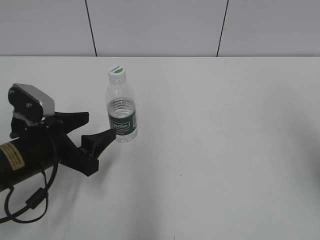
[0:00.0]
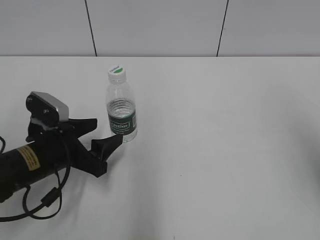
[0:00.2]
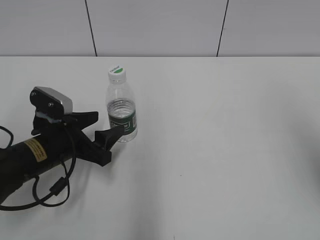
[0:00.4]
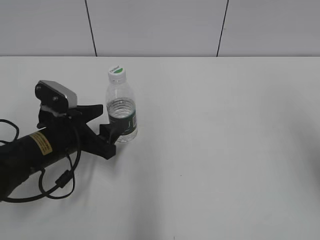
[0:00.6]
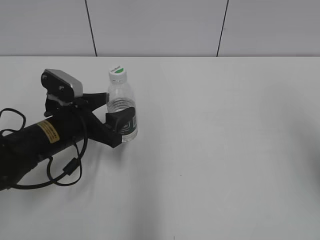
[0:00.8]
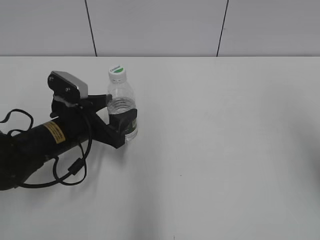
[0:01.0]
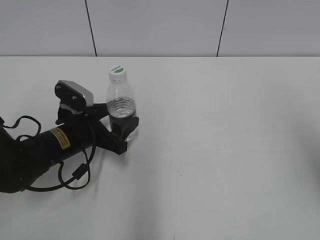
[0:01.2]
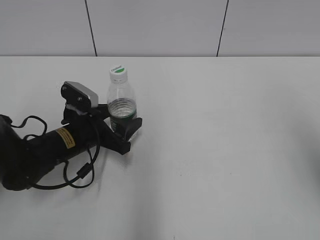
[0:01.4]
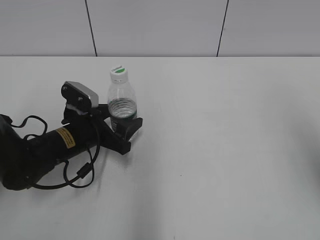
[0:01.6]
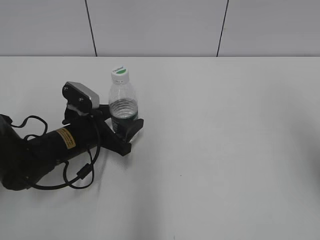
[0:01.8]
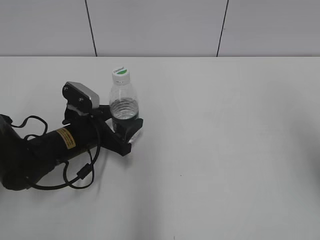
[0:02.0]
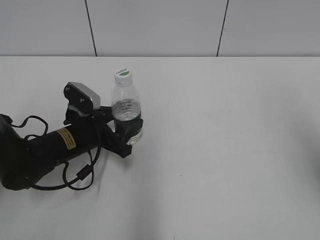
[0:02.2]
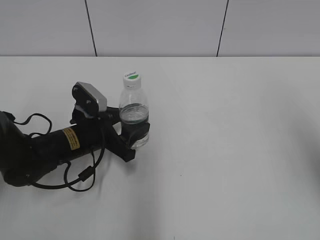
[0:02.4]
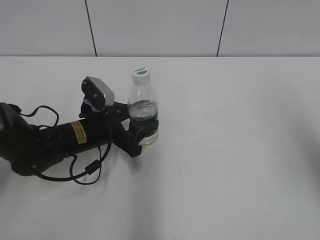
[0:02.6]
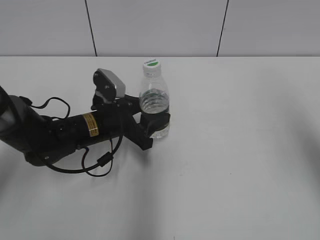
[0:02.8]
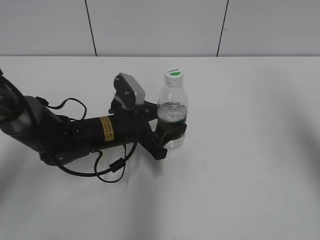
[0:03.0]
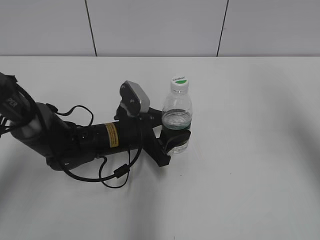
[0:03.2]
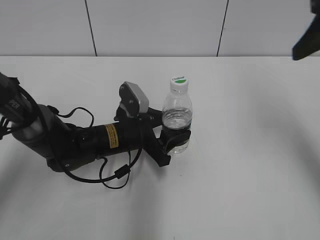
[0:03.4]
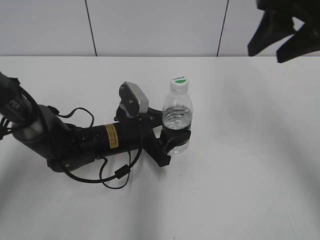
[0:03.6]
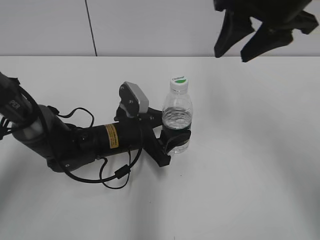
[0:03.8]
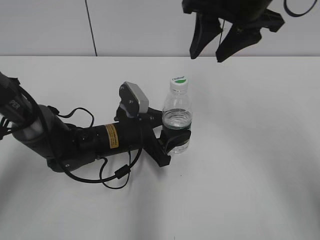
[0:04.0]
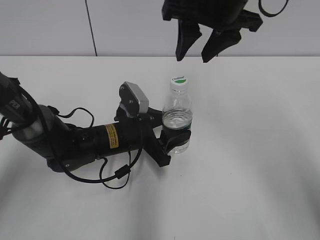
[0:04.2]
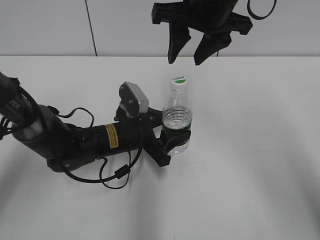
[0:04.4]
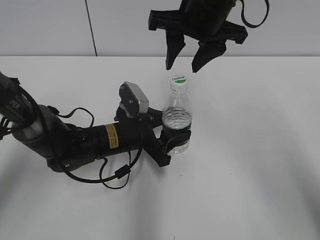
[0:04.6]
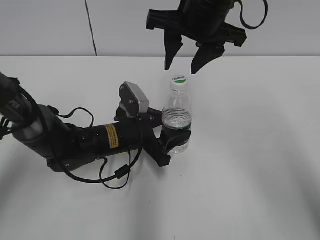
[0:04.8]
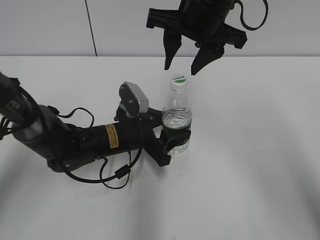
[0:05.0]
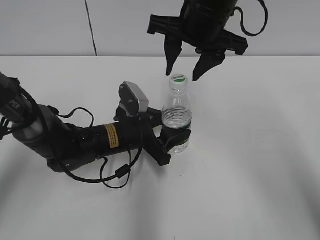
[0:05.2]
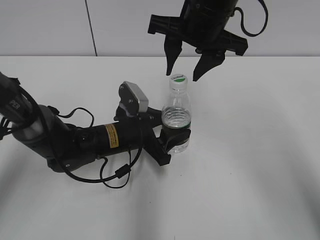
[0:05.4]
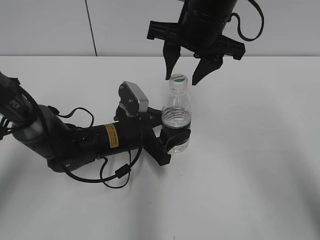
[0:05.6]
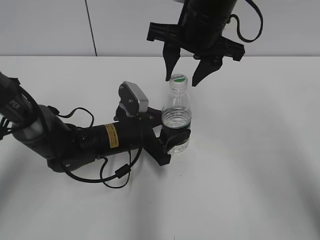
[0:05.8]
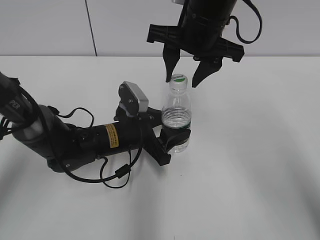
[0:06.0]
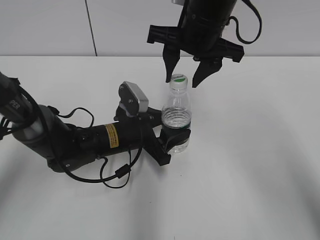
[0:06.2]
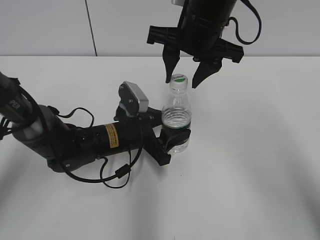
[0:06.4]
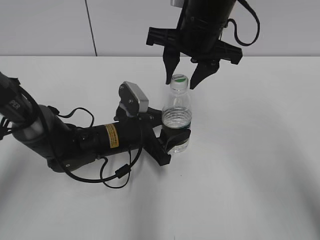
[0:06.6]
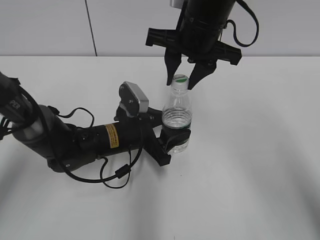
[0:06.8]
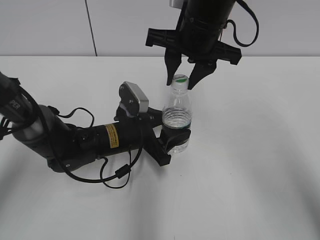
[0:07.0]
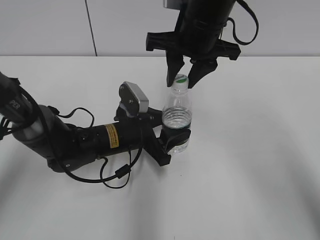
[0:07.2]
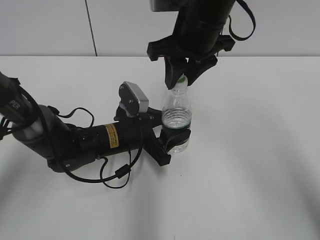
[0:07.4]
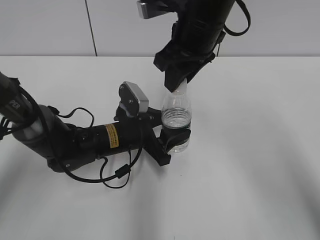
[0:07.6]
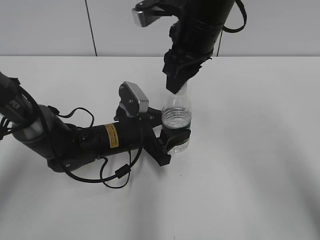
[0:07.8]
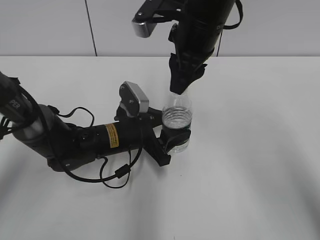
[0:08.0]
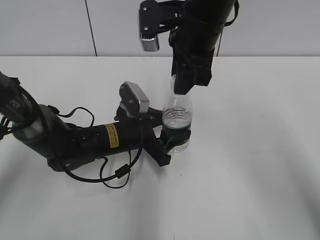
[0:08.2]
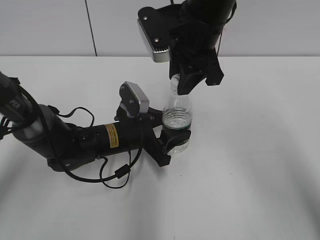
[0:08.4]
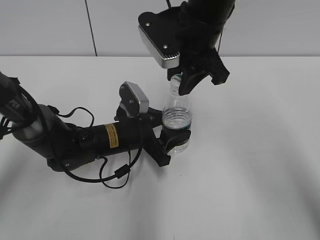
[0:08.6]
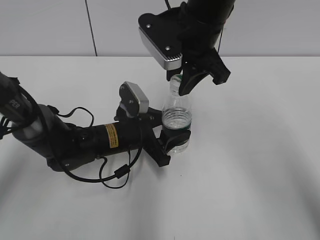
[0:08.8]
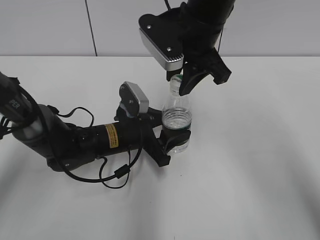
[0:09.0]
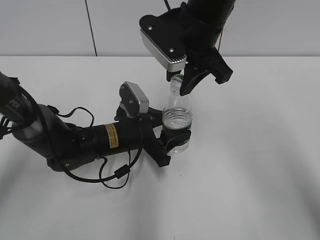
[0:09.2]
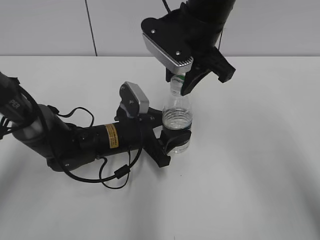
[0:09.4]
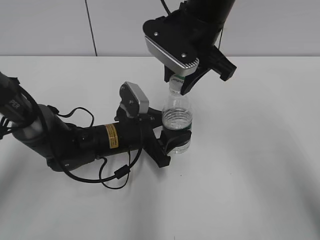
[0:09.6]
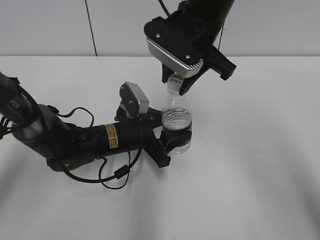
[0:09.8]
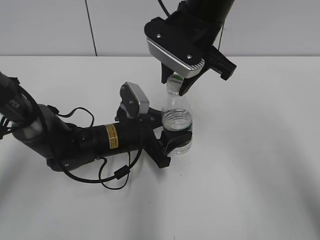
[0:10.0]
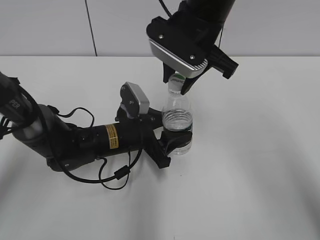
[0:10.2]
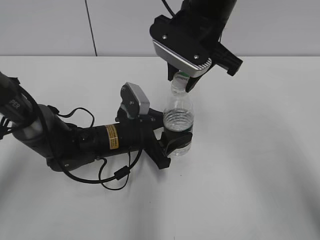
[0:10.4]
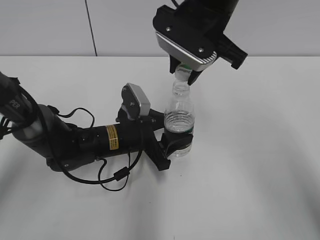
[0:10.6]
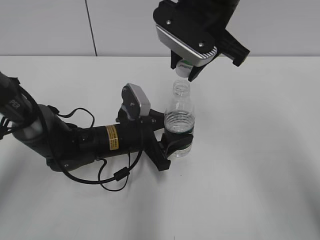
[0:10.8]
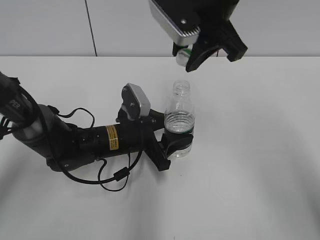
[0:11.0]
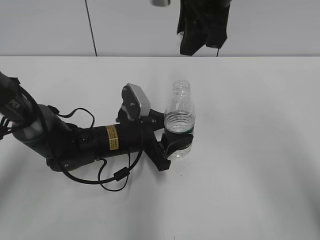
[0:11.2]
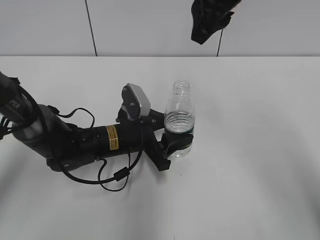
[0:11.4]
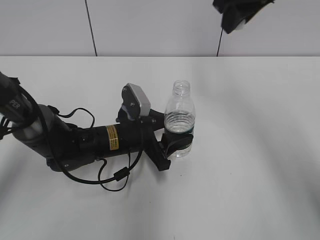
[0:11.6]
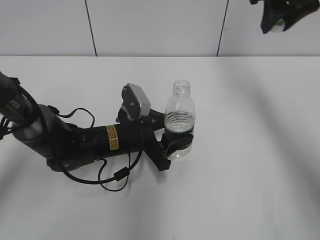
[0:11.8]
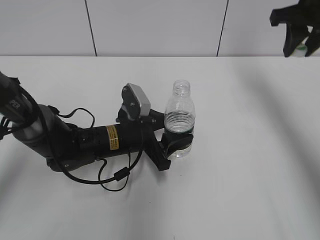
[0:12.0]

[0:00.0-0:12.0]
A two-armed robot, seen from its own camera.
Step, 0:00.0 to 0:02.2: Grasp the bottle and move it to the center of the table with the left gripper.
Step, 0:02.4 to 0:03.4: Lift the bottle and move it to the center of the table with the left gripper.
Step, 0:03.6 to 0:10.8: Unscrew the bottle cap with the right gripper while holding the bottle with the left gripper.
0:00.0 to 0:01.6: The left gripper travels forward and downward by about 10 cm.
0:01.6 to 0:03.0: The right gripper is displaced forward by about 5 cm. Meanwhile the left gripper is displaced to the right by approximately 5 cm, and closes its fingers.
0:03.0 to 0:04.4: The right gripper heads to the left and forward, covering approximately 25 cm.
0:04.4 to 0:06.0: The grippers stay close to where they were, moving slightly.
0:06.0 to 0:07.6: The right gripper closes.
0:10.4 to 0:12.0: The right gripper travels to the right by about 20 cm.

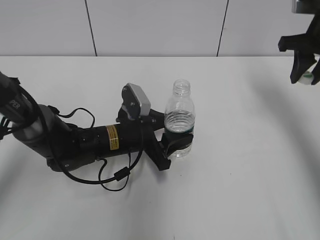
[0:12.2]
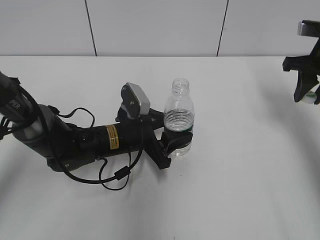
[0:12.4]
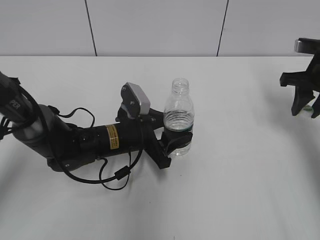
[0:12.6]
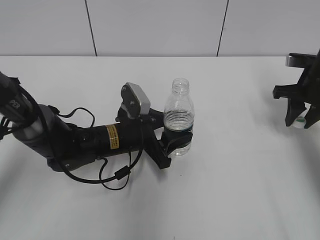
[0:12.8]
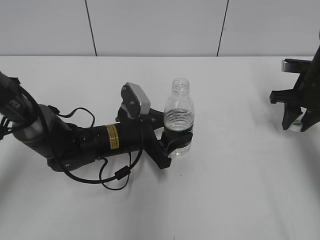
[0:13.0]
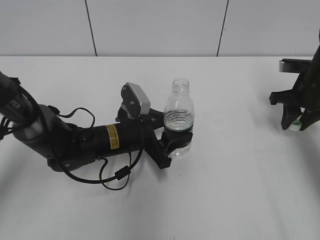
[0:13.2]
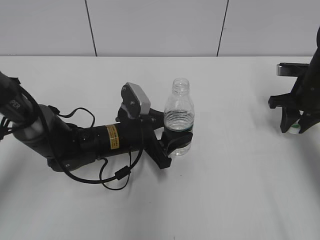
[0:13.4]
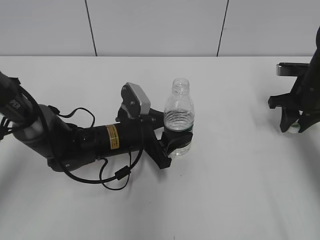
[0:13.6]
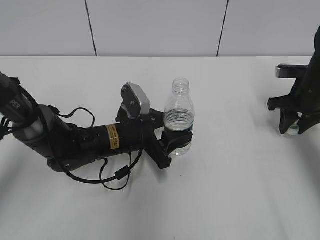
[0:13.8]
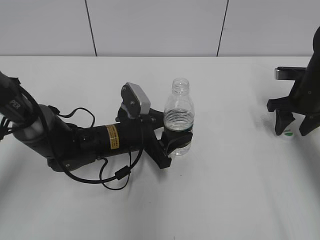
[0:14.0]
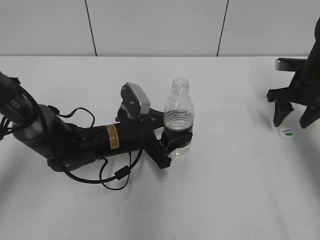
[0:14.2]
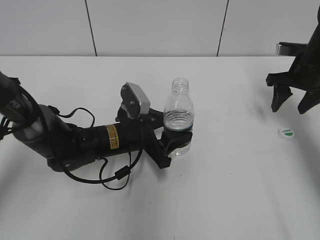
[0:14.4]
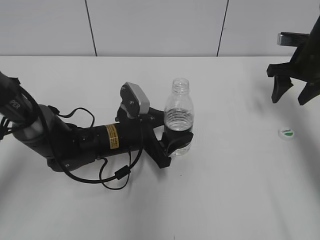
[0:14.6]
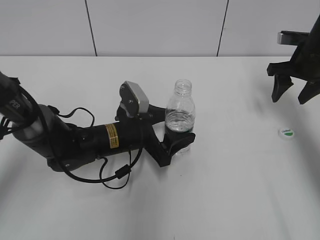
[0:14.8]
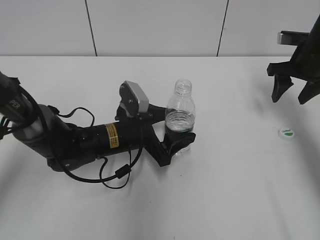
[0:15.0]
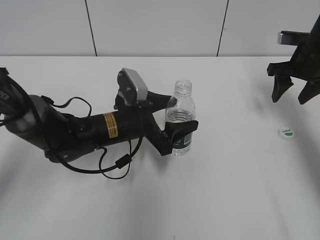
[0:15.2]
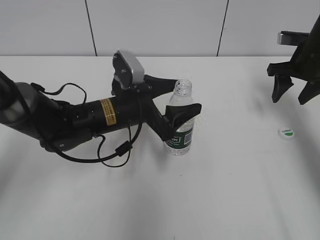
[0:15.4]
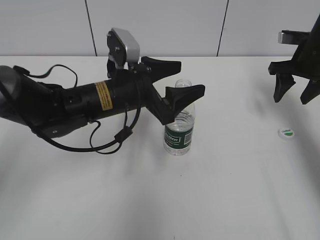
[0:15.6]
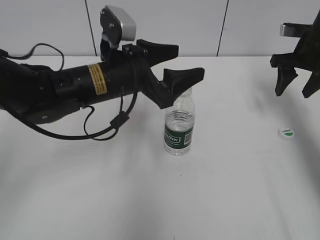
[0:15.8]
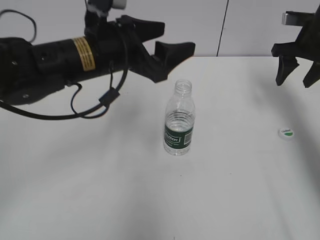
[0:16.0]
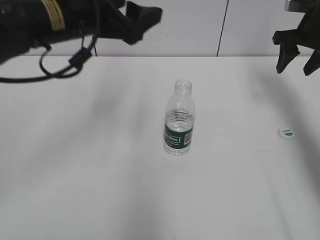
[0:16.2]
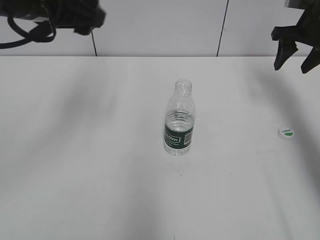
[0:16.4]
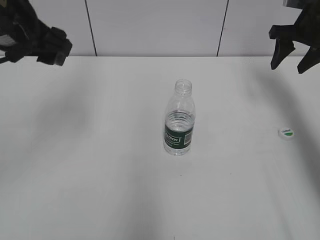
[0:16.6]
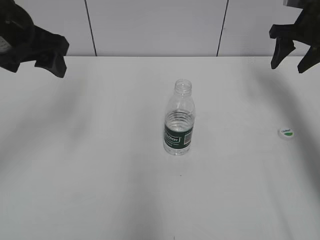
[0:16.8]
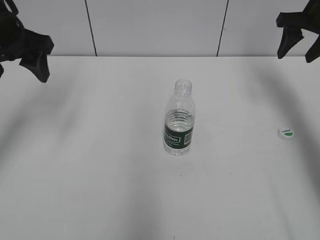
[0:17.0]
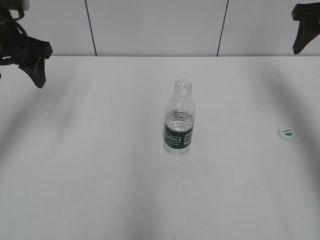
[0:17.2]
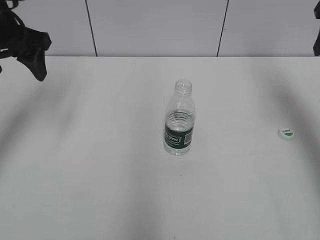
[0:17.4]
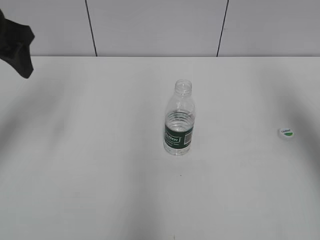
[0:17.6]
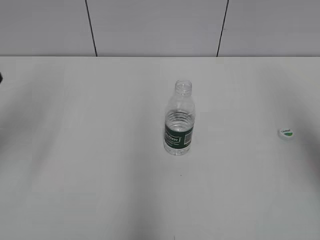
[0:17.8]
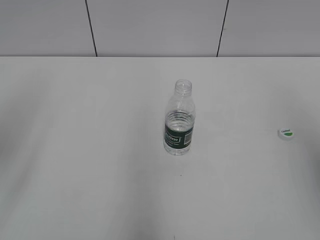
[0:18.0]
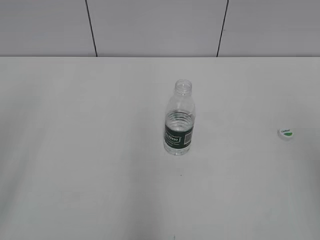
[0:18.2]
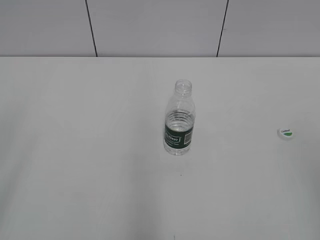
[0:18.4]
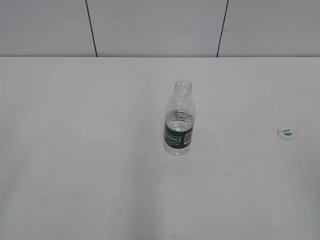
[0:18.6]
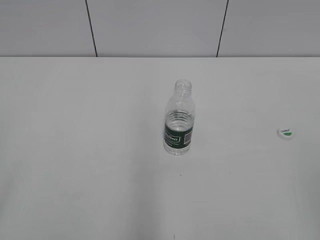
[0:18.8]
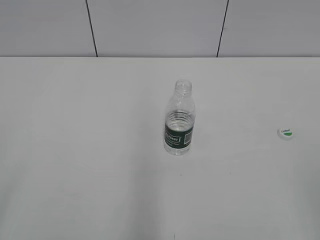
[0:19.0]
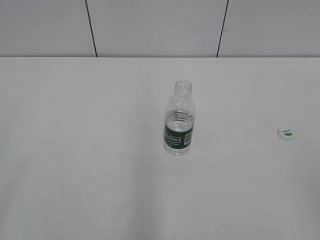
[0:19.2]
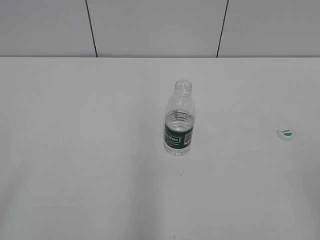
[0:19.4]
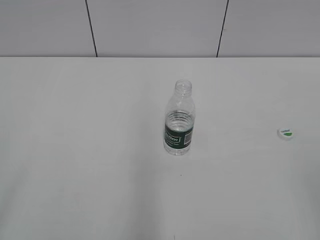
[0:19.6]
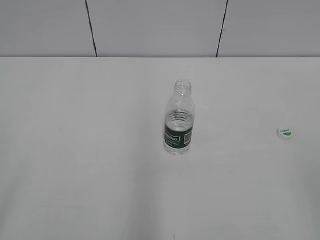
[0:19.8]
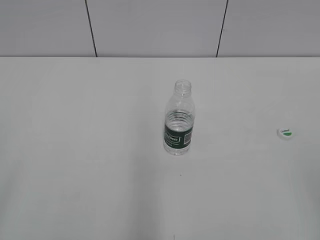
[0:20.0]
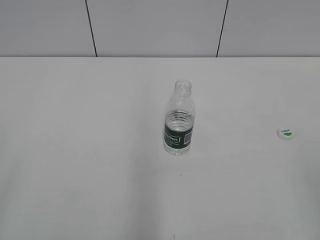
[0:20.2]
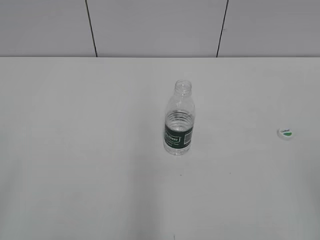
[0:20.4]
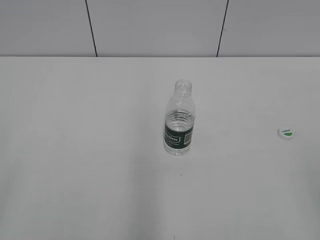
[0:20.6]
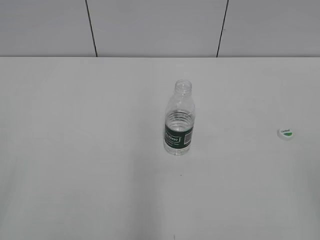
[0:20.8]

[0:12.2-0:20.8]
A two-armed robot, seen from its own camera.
Step, 0:12.2 to 0:14.4: Place the bottle cap on the table with the right gripper.
Step, 0:14.6 to 0:15.8: Place the bottle on the table with the left gripper.
0:12.2 to 0:13.6: The right gripper is displaced downward by approximately 15 cm.
0:13.6 to 0:15.0: The right gripper ends up roughly 5 cm from where it was, and opens its fingers. The left gripper opens.
0:15.0 to 0:16.6: The right gripper goes some 5 cm upward. Meanwhile the left gripper goes some 30 cm upward and to the left.
0:16.6 to 0:18.0: The right gripper heads backward and upward, covering some 35 cm; the left gripper shifts roughly 15 cm backward and to the left.
0:18.0 to 0:19.4: The left gripper heads backward, covering some 20 cm.
